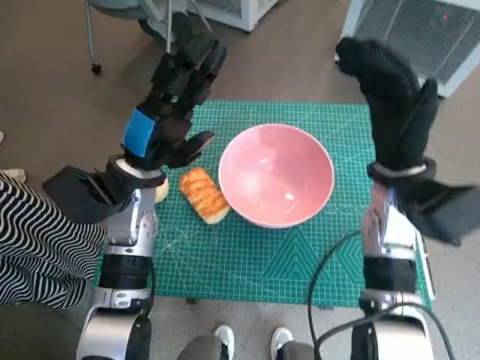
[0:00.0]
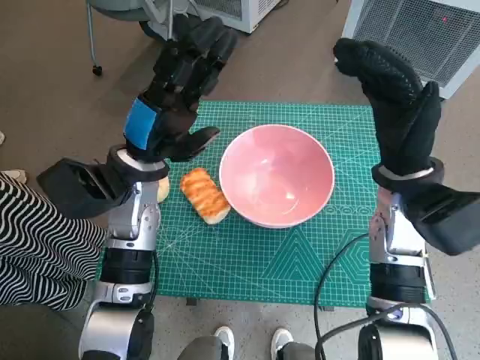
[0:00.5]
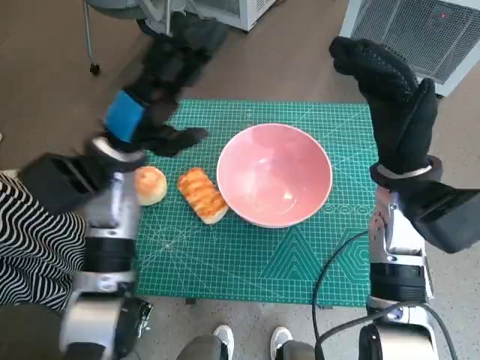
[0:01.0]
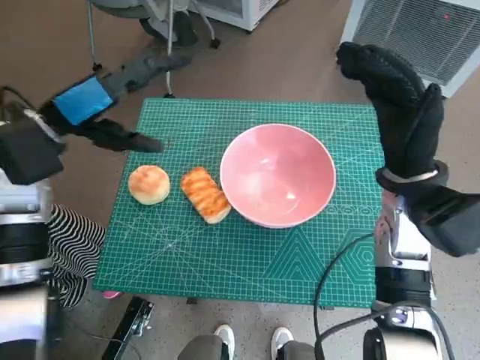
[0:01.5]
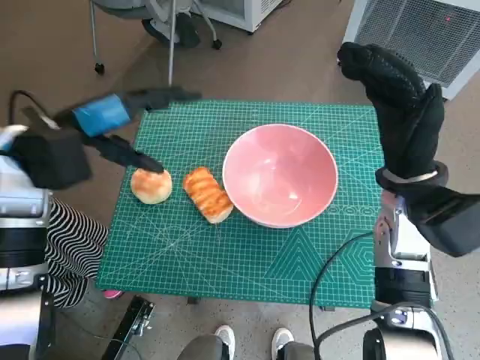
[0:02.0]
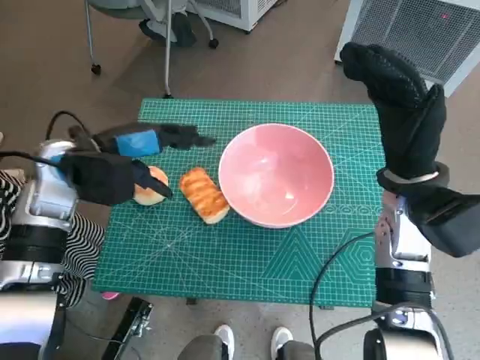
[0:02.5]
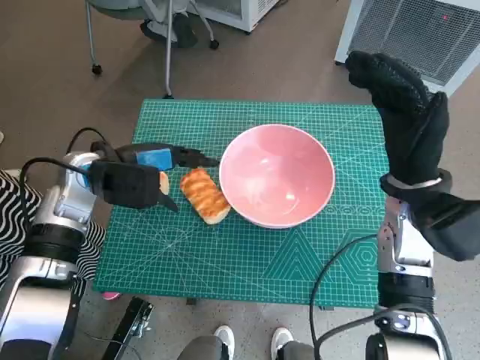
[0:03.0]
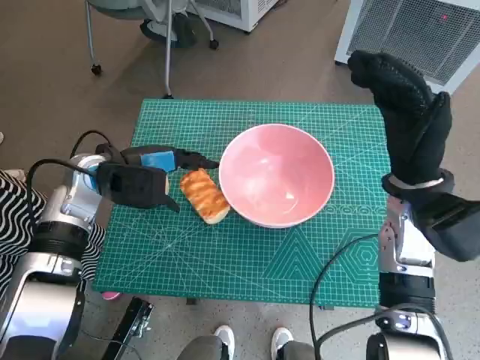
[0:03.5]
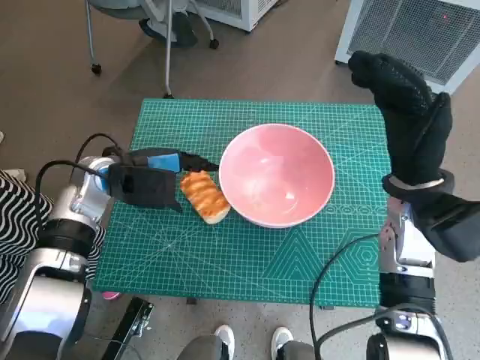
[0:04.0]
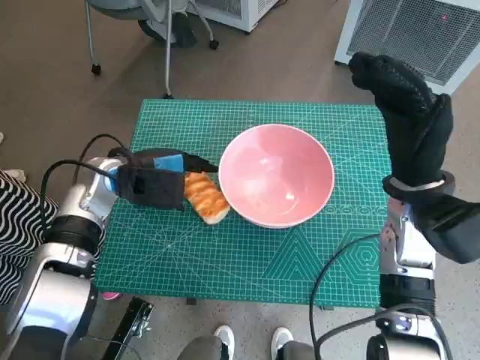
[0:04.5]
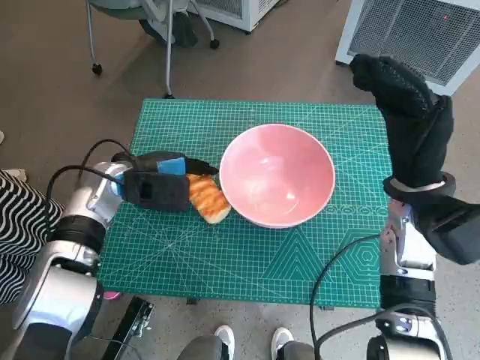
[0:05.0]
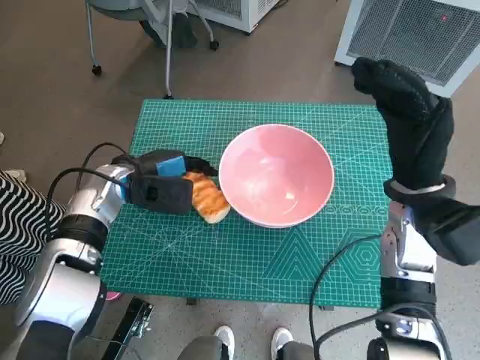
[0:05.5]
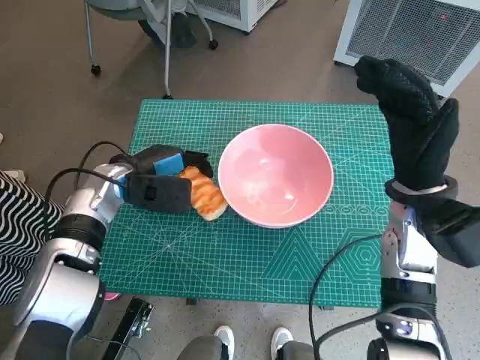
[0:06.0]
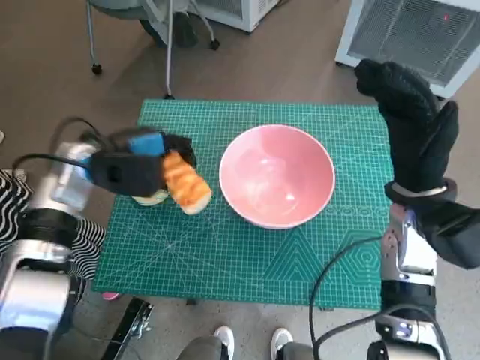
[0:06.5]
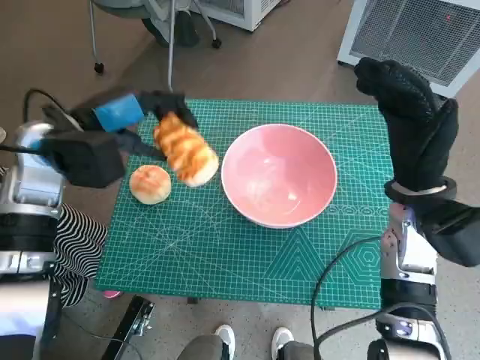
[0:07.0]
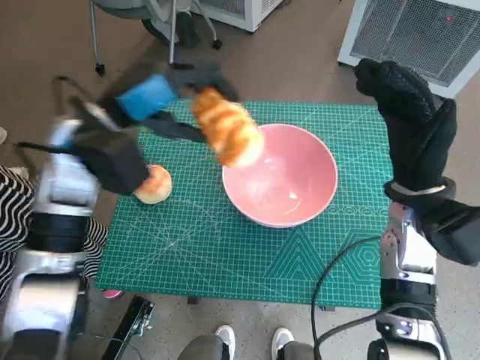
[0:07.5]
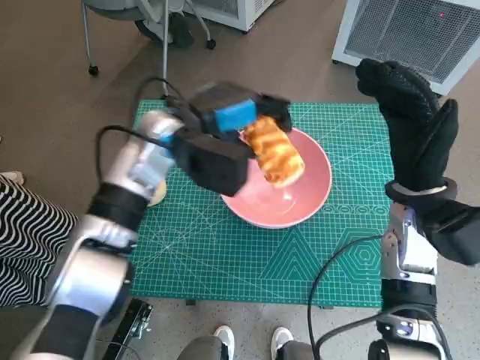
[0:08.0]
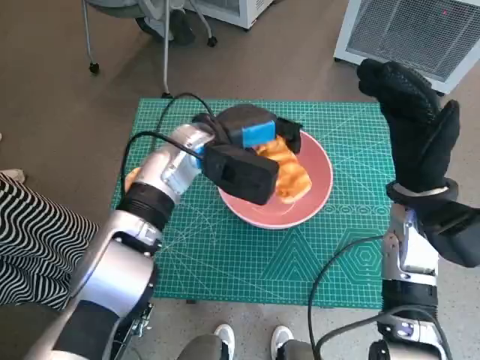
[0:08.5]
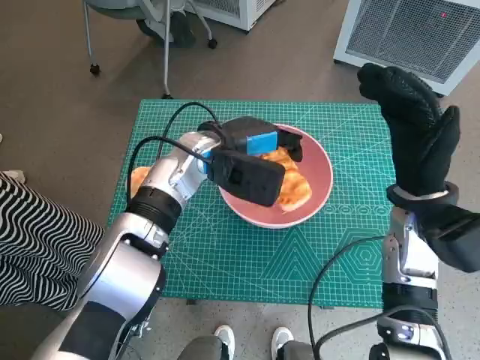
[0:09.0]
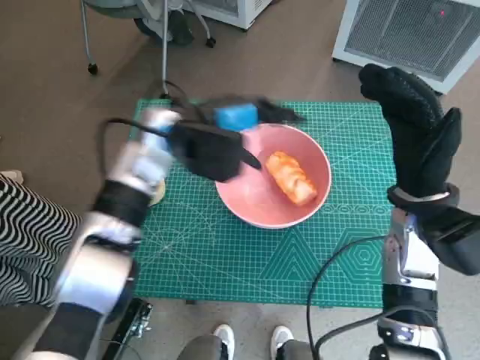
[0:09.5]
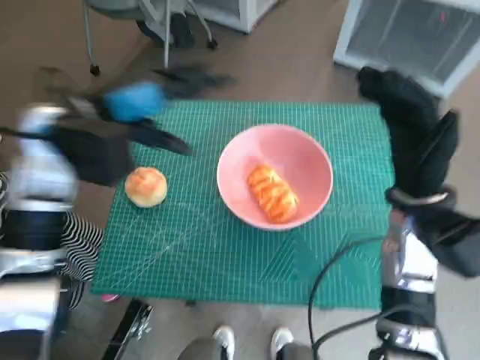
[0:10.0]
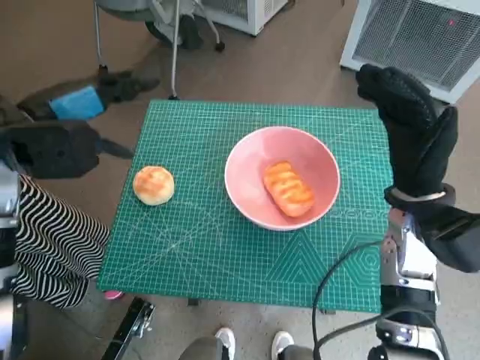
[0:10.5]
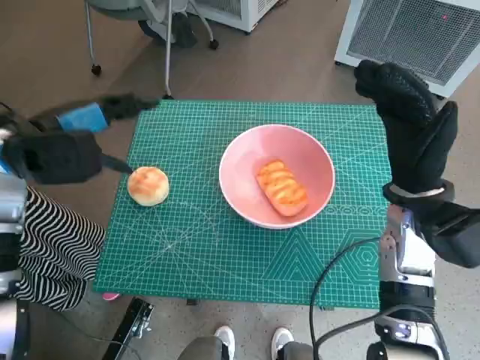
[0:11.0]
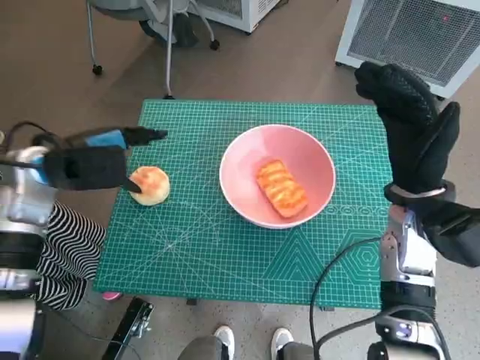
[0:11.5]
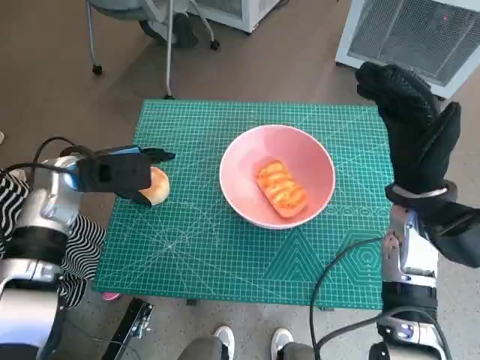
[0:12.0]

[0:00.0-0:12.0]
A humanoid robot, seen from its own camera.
Task of the whole recording: Push the bowl into the center of the table and put the bread into the bowl.
Step, 0:00.0 to 0:05.5: Grasp the long bread with left hand.
Step, 0:06.0 to 0:09.5: Place the long bread in pink bowl with left hand.
0:00.0 to 0:02.0: The left hand heads upward and to the left, covering roughly 10 cm.
0:02.0 to 0:04.0: The left hand travels downward by some 10 cm.
0:04.0 to 0:06.0: The hands stay close to where they were, moving slightly.
0:06.0 to 0:08.0: The left hand shifts roughly 15 cm upward and to the right.
0:08.0 to 0:10.0: The left hand is displaced to the left by roughly 10 cm.
0:10.0 to 0:12.0: The left hand shifts some 10 cm downward and to the left.

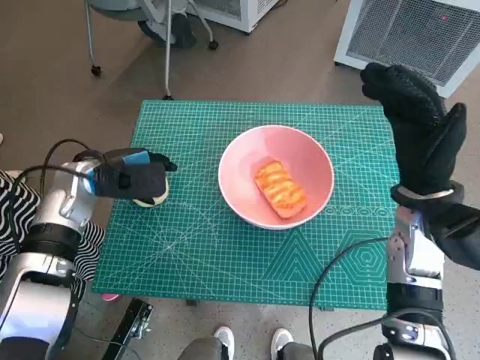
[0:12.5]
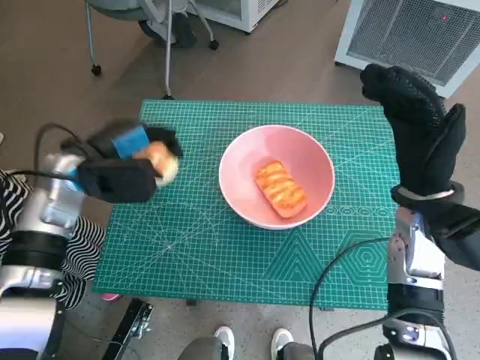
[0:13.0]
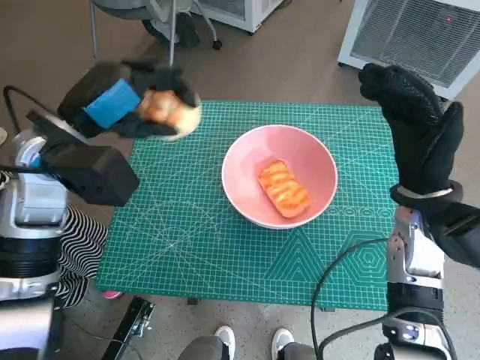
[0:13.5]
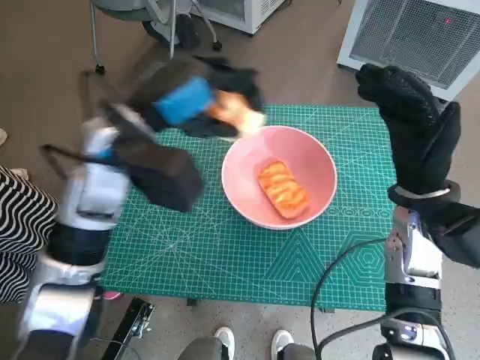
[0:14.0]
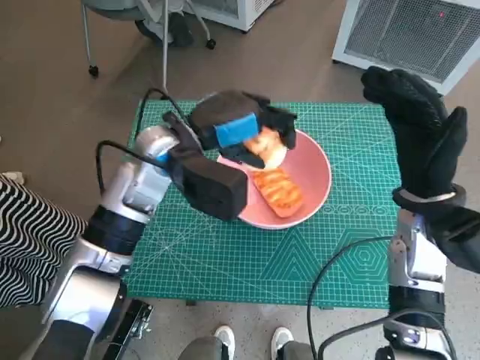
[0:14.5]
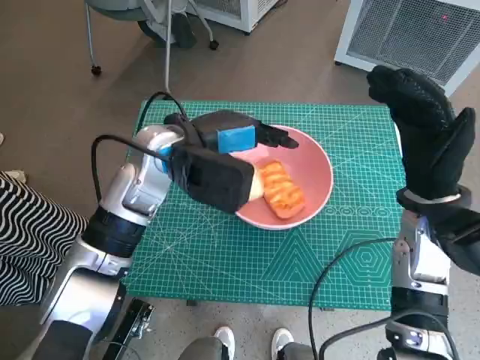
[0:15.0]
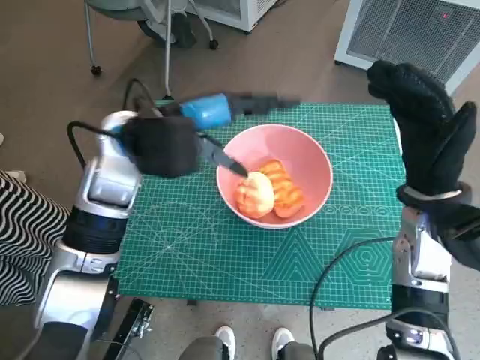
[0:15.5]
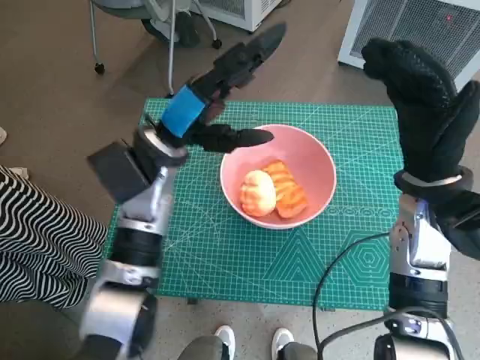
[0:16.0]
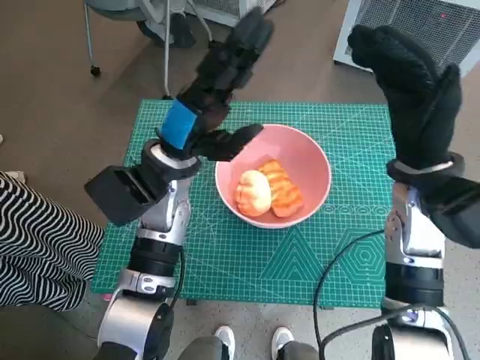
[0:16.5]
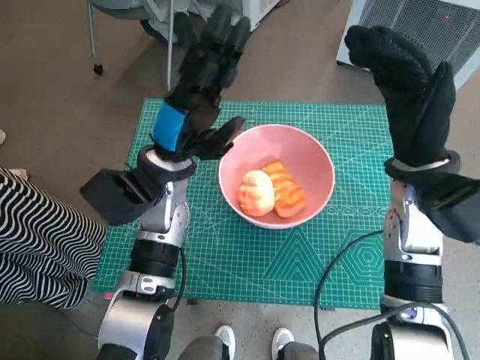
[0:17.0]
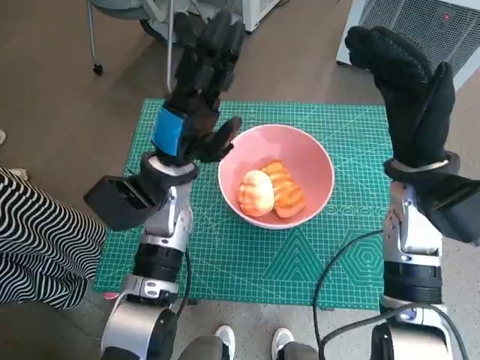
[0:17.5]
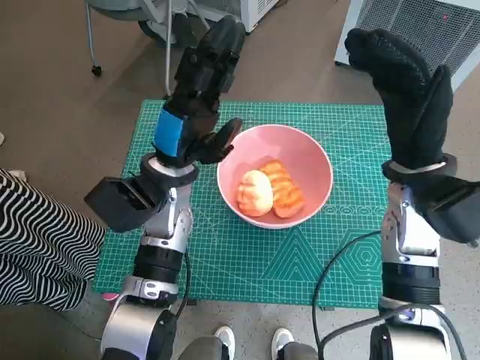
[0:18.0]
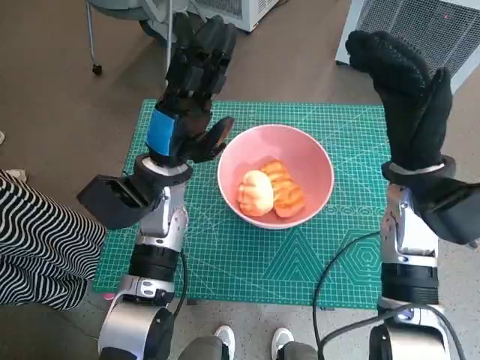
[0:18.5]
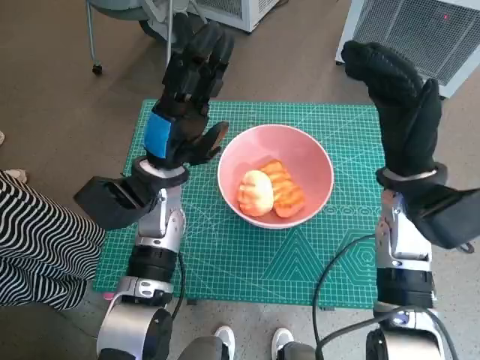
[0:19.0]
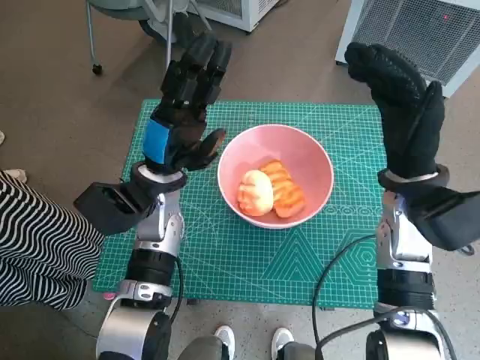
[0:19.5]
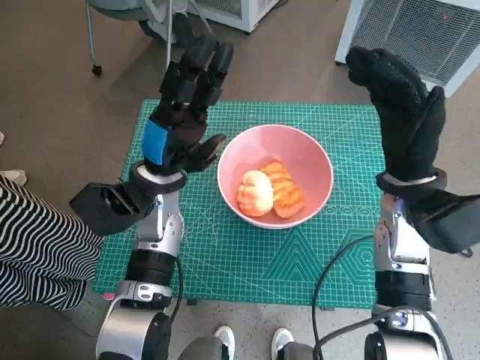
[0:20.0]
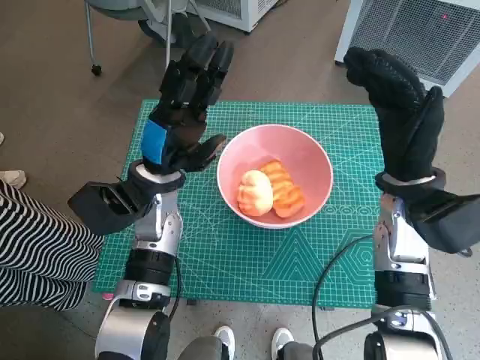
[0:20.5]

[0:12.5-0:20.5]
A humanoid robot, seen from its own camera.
Task of the whole recording: Push the bowl into the center of the table and put the bread into the bowl.
Step, 0:13.0 to 0:15.0: Place the round bread in pink bowl with left hand.
0:12.5 to 0:14.5: The left hand is displaced to the right and upward by some 15 cm.
0:16.5 to 0:20.5: There are only small adjustments of the hands.
